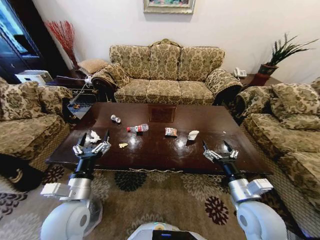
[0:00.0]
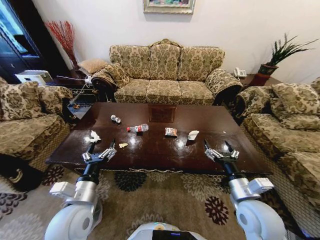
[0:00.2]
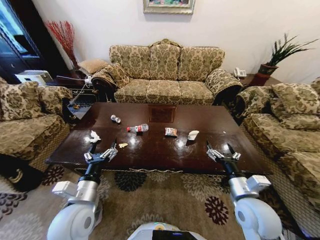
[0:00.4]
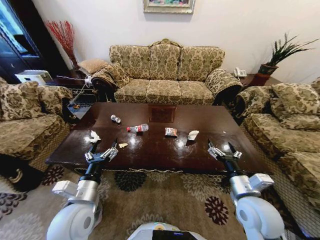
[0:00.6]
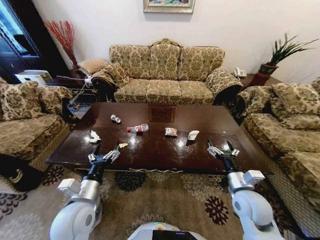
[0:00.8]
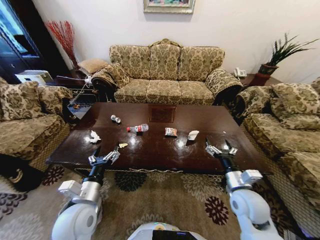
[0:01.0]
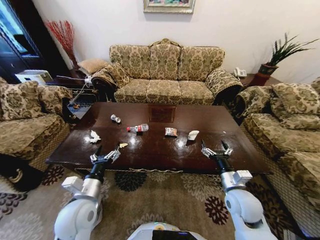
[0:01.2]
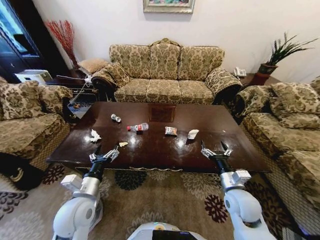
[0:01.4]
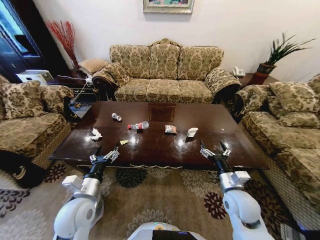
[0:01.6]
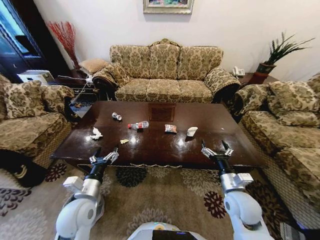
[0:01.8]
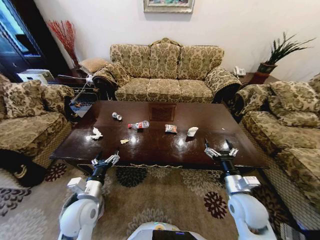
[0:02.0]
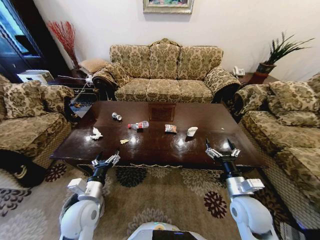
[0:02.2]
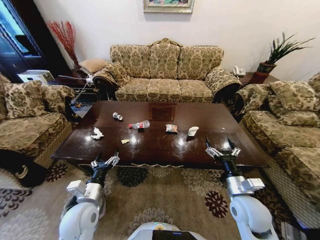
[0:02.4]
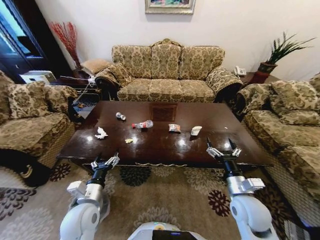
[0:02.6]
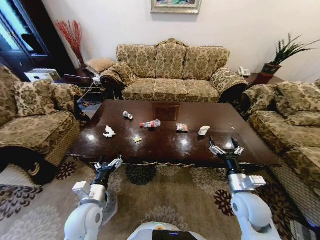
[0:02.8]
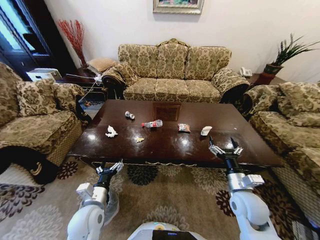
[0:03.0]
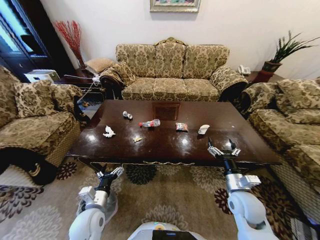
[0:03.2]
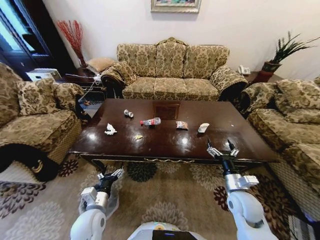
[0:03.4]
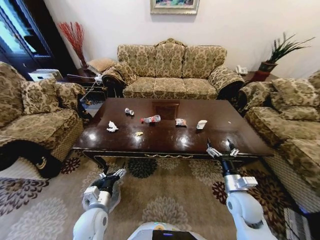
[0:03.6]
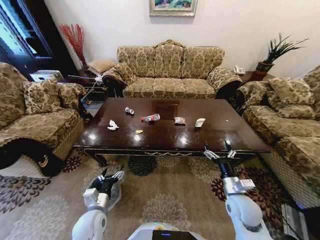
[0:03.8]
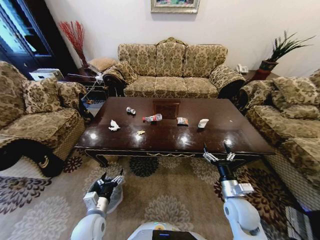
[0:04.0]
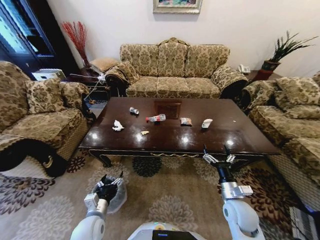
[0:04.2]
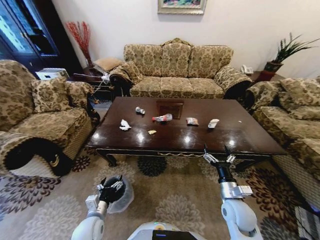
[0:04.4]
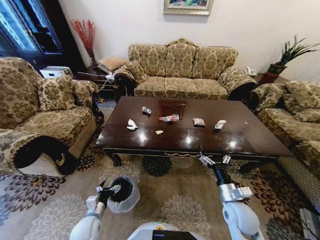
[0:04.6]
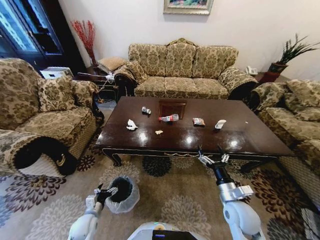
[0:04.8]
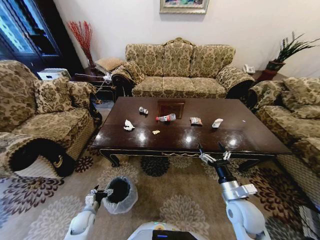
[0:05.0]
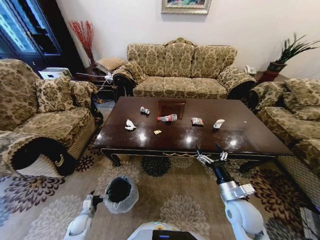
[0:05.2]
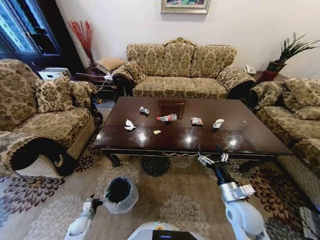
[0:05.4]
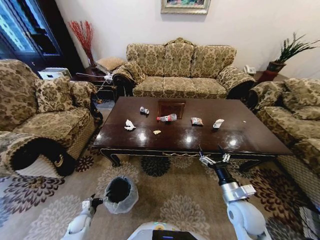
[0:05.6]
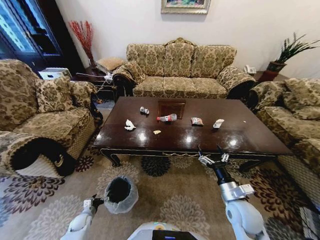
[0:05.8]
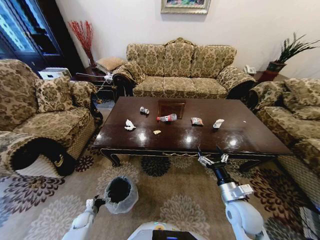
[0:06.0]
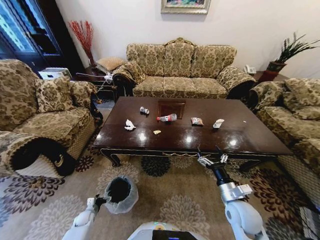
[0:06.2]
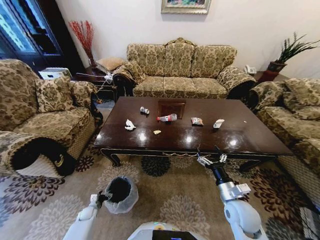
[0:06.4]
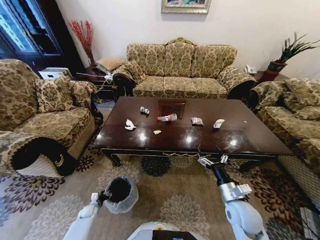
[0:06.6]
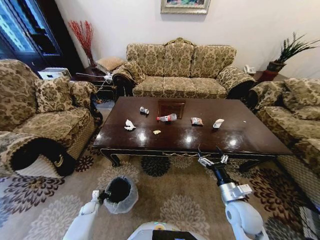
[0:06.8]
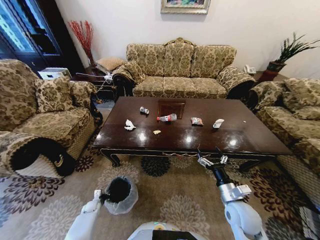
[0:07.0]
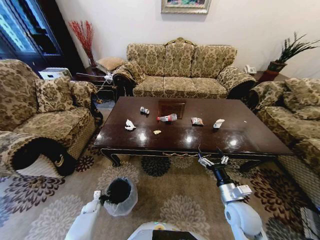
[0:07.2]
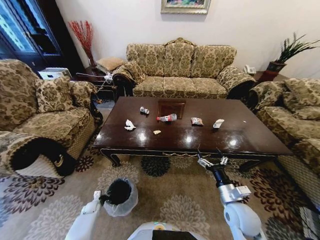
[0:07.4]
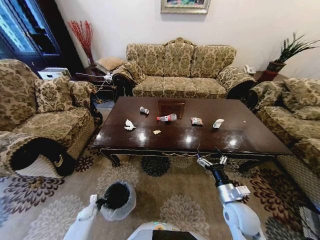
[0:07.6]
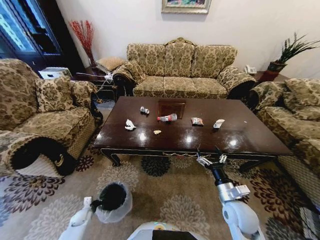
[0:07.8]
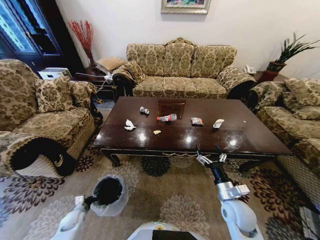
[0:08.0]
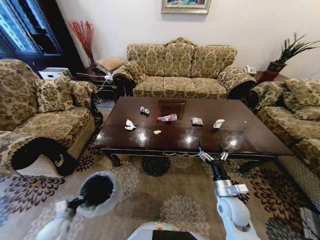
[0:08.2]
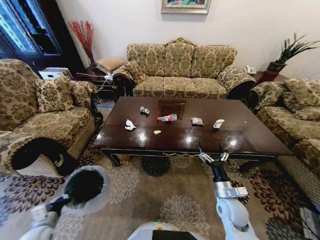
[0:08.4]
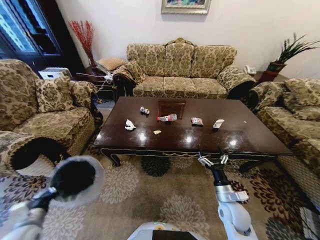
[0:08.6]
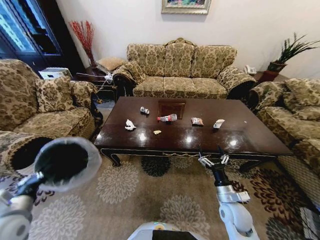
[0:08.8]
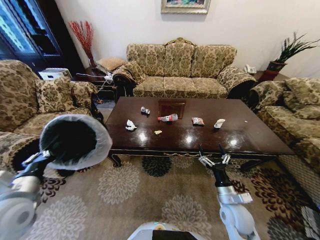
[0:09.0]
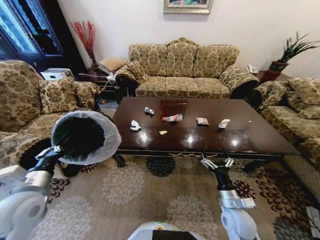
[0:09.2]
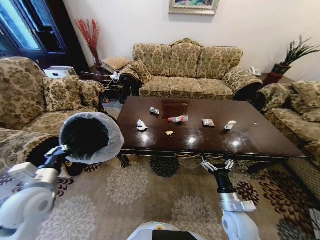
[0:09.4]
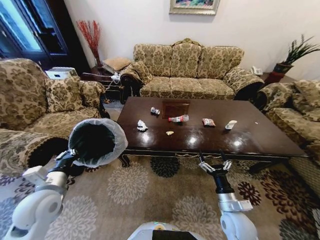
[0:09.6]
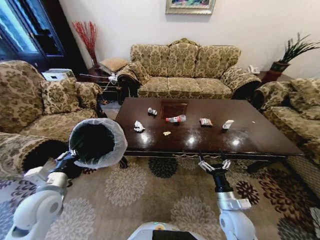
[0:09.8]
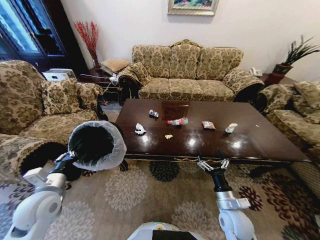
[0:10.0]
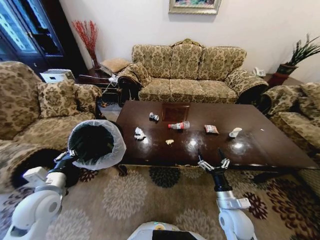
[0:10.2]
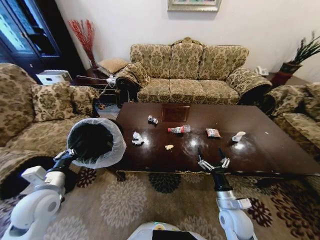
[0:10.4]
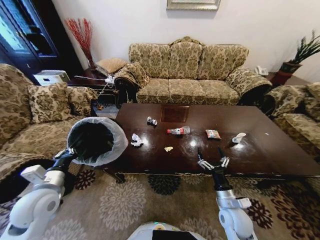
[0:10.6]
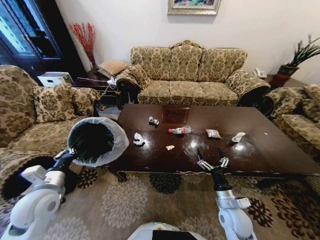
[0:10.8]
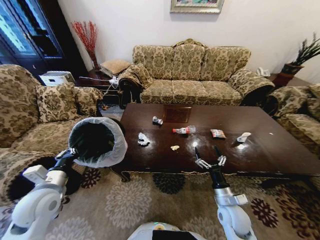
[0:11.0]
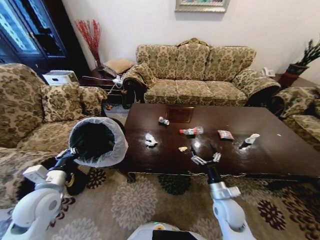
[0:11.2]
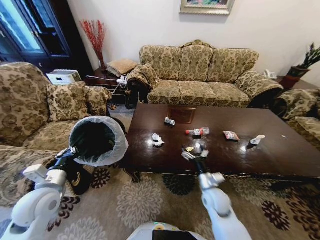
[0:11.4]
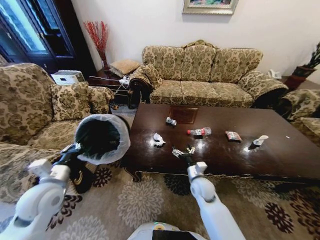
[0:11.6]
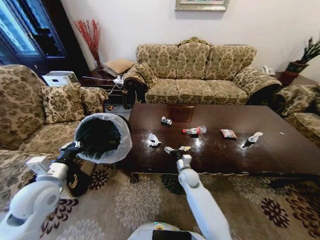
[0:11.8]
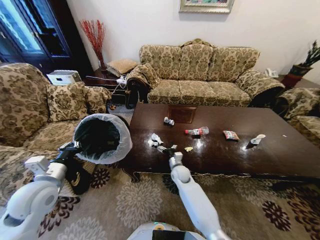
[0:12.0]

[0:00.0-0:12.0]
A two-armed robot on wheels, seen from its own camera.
Task of the whole recording: Move to the front of the table and place the trash on the table into the trash bin.
0:01.6 to 0:03.0: The left gripper goes about 5 cm downward.
0:03.0 to 0:04.4: The left gripper heads downward, covering roughly 10 cm. Meanwhile the right gripper goes about 5 cm downward.
0:04.4 to 0:06.0: The left gripper moves downward and to the left, some 25 cm.
0:06.0 to 0:07.6: The left gripper closes up.
0:07.6 to 0:09.0: The left gripper heads upward, covering approximately 40 cm.
0:09.0 to 0:10.4: The left gripper moves approximately 5 cm.
0:10.4 to 0:12.0: The right gripper travels forward and to the left by some 25 cm.

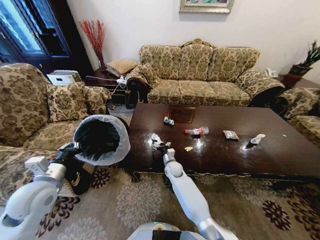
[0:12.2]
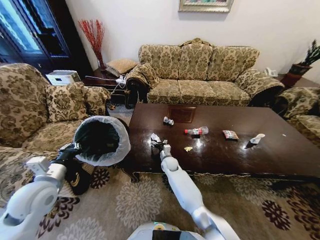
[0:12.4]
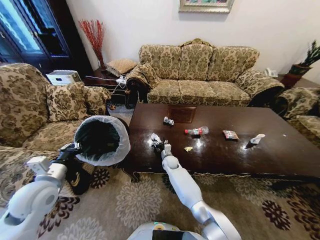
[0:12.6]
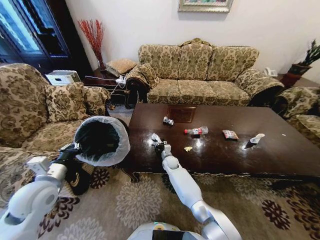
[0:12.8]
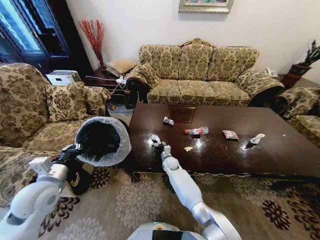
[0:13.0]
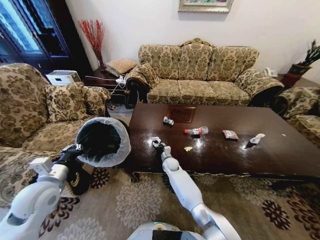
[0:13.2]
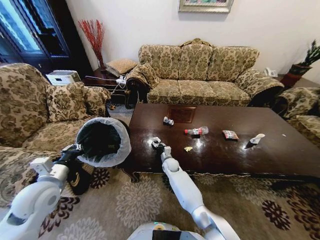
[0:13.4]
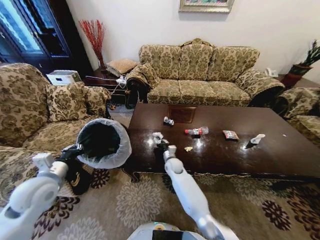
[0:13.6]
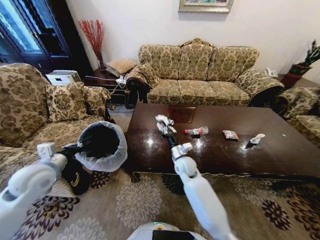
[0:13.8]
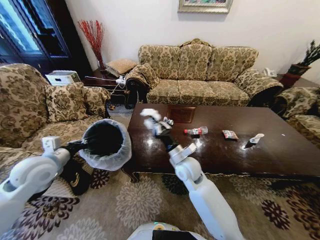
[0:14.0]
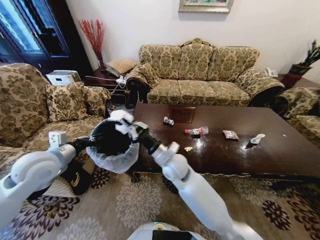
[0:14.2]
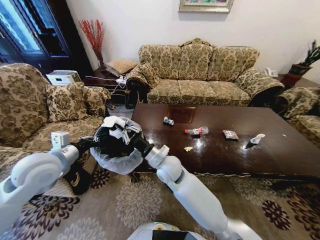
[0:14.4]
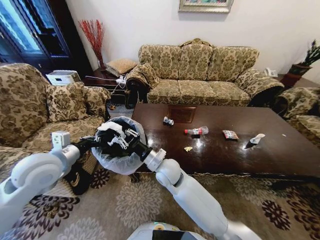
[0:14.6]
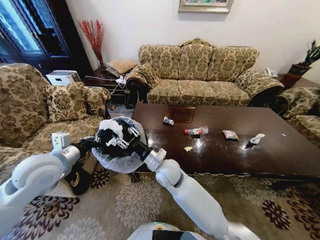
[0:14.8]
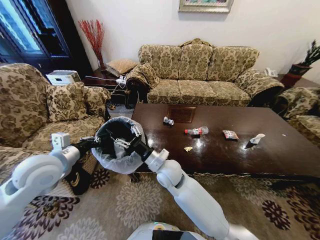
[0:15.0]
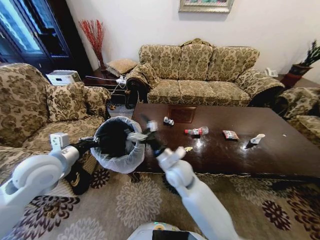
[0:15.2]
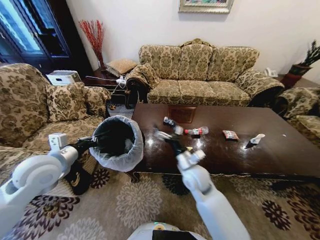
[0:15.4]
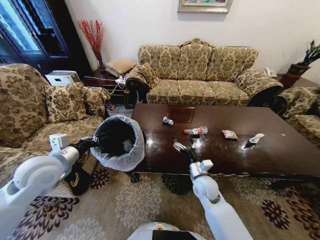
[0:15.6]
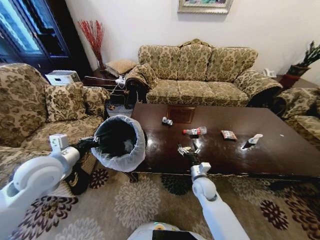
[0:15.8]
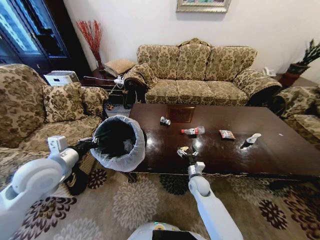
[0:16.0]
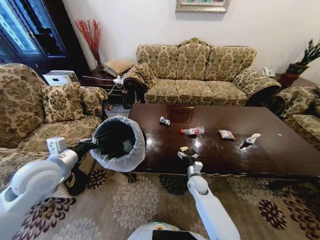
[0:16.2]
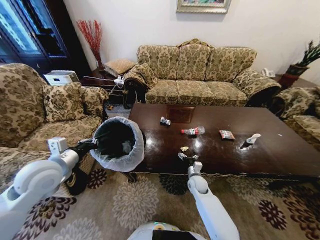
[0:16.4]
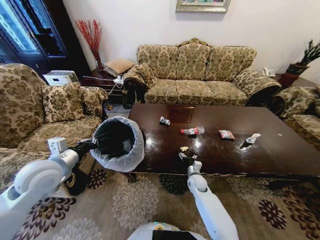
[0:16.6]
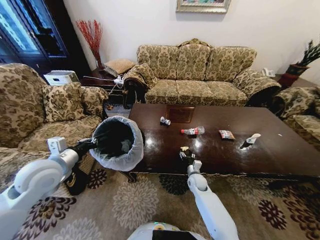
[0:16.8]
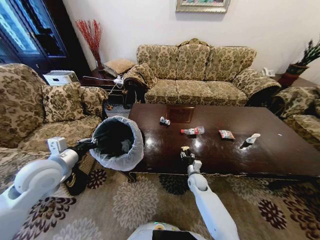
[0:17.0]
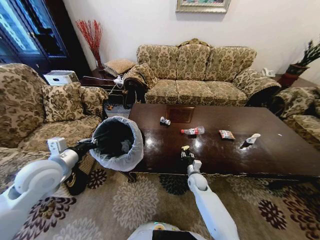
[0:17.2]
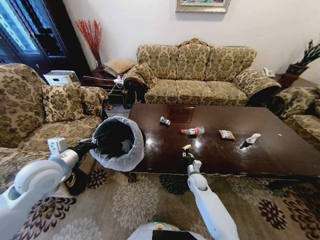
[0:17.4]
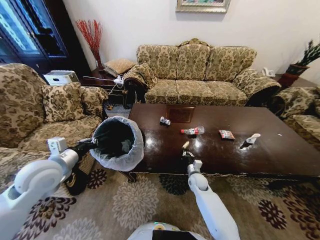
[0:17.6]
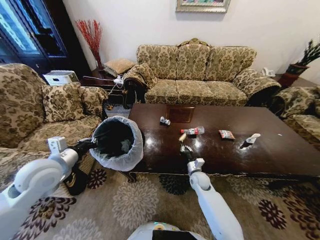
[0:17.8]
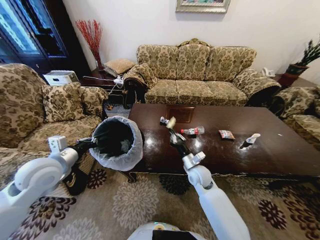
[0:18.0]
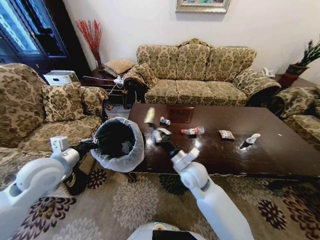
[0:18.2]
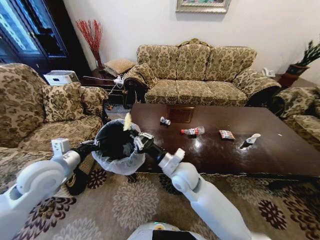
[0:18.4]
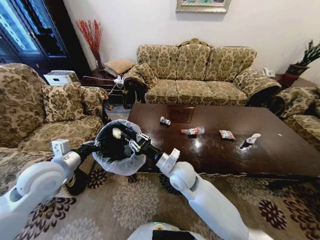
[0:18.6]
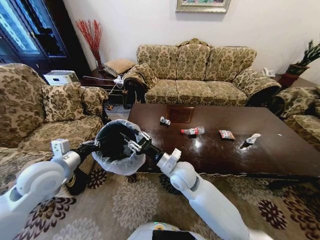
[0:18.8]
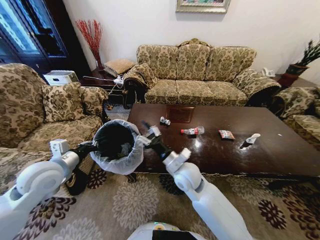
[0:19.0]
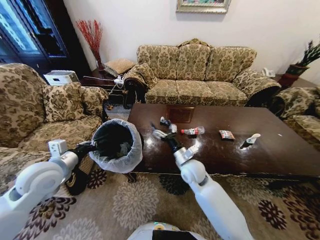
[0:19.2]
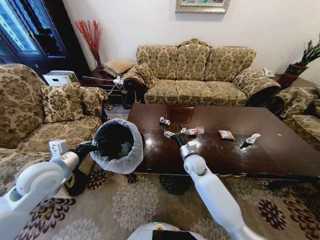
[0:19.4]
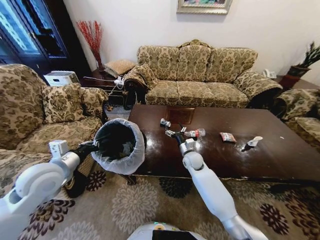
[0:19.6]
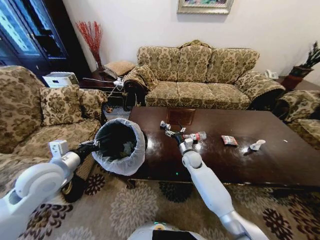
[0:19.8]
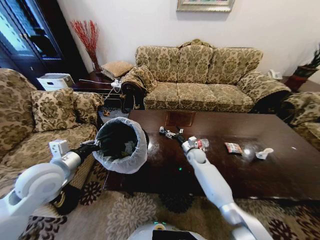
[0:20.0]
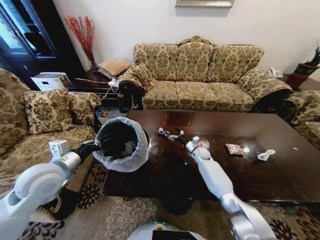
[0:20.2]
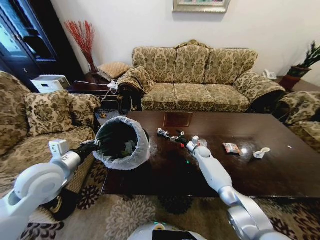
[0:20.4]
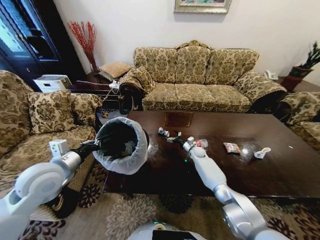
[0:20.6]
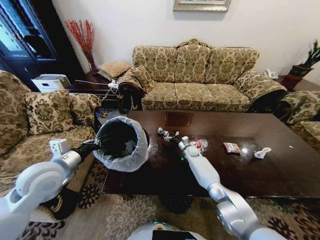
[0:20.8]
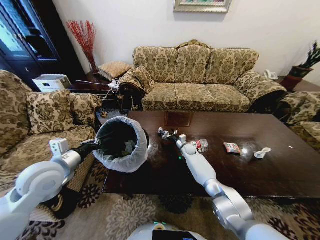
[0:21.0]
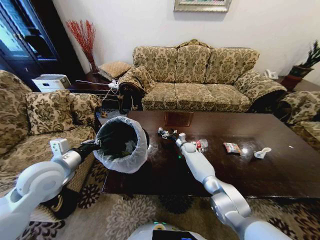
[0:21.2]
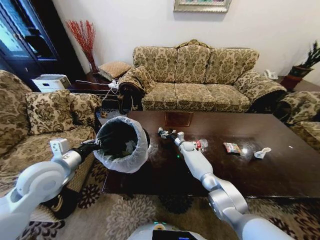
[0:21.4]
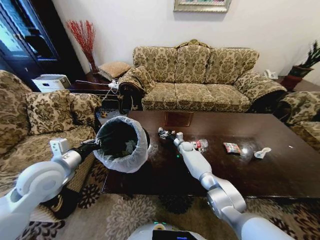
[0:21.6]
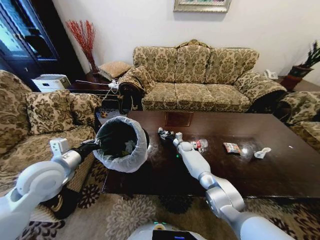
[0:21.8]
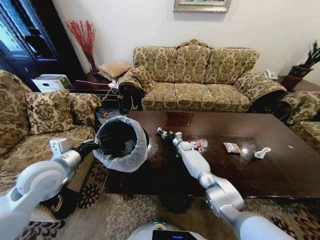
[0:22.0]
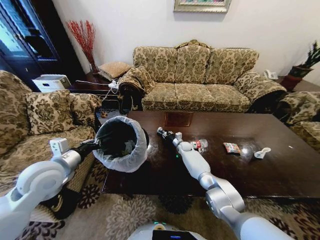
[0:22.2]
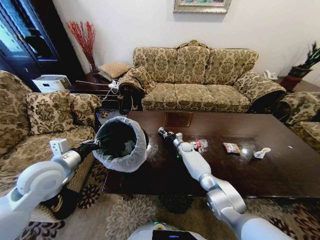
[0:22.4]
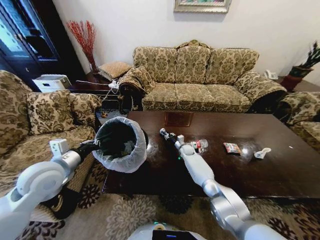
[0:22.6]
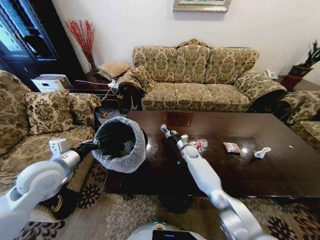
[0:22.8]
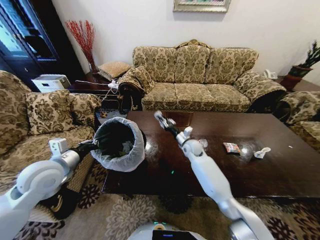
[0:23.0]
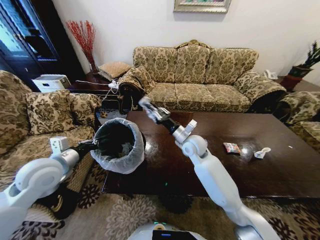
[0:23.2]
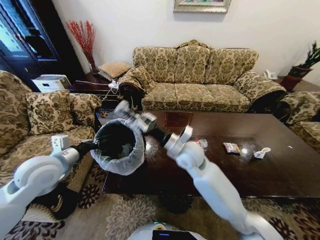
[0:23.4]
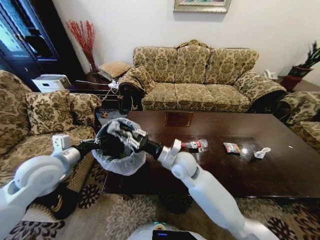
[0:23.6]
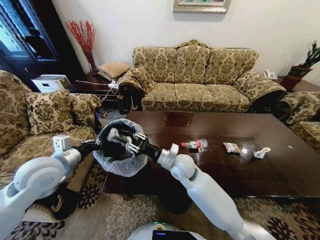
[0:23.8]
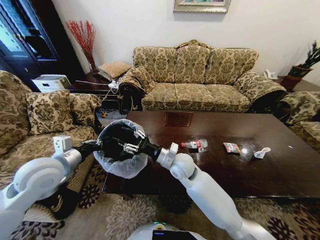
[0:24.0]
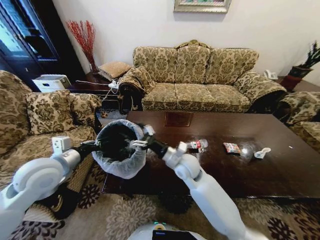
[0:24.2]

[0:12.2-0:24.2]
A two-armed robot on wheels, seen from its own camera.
Task of the whole recording: Move to the front of the table and place the trash on the table into the trash bin.
0:12.2 to 0:13.8: The left gripper moves roughly 5 cm, while the right gripper is displaced upward by about 10 cm, and closes its fingers.
0:13.8 to 0:15.2: The right gripper goes roughly 10 cm upward, backward and to the left, and opens its fingers, while the left gripper goes roughly 5 cm to the right.
0:15.2 to 0:16.6: The right gripper is displaced downward and to the right by roughly 25 cm.
0:16.6 to 0:18.2: The right gripper moves upward, some 20 cm, and closes.
0:18.2 to 0:19.8: The right gripper goes about 20 cm forward and downward, and opens its fingers.
0:19.8 to 0:21.2: The right gripper is displaced forward and downward by some 15 cm.
0:21.2 to 0:22.6: The right gripper closes.
0:22.6 to 0:24.2: The right gripper is displaced backward, upward and to the left by some 30 cm, and opens its fingers.
